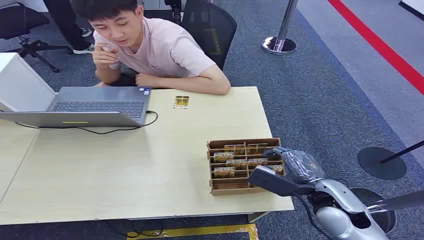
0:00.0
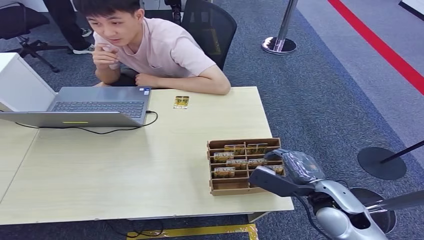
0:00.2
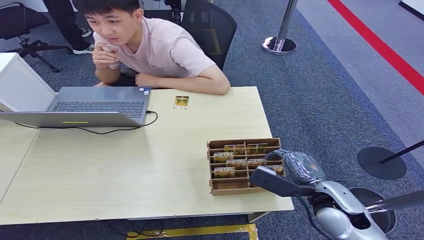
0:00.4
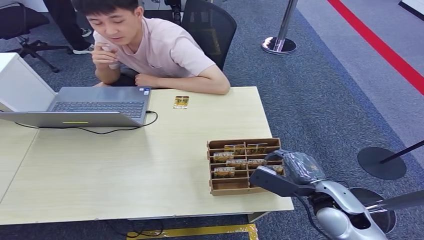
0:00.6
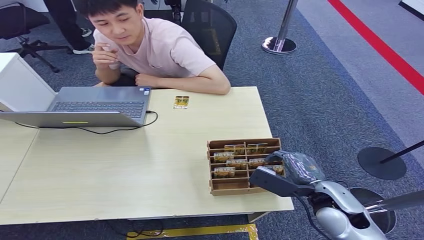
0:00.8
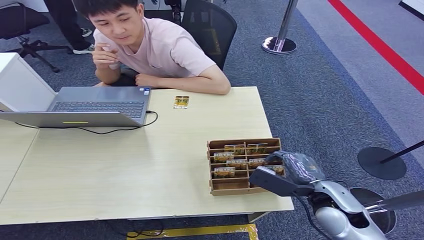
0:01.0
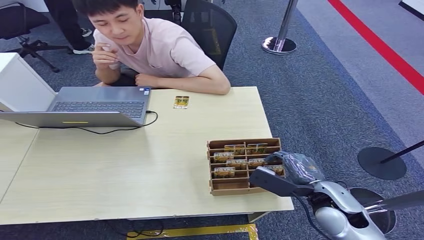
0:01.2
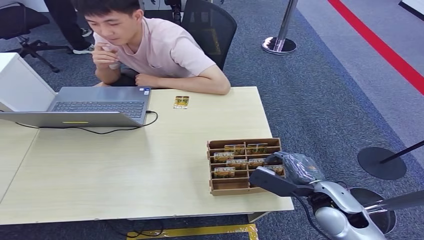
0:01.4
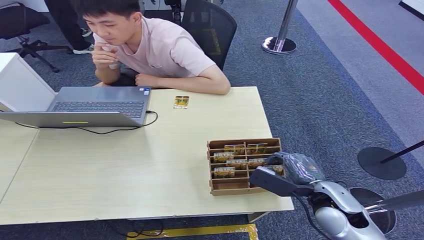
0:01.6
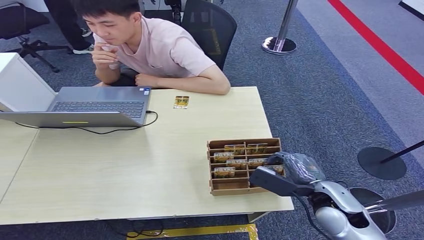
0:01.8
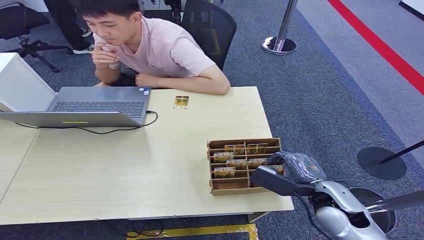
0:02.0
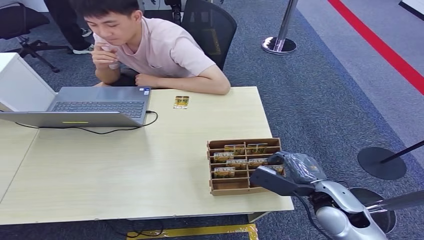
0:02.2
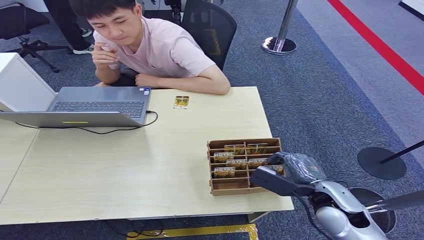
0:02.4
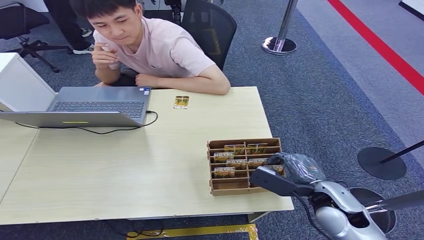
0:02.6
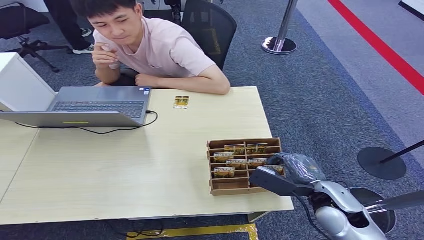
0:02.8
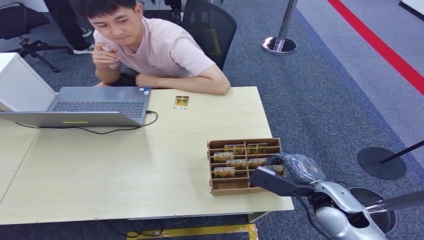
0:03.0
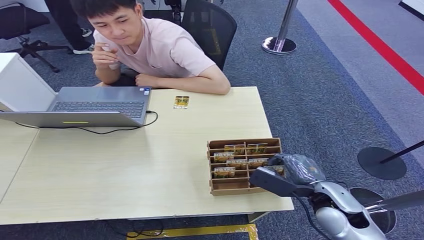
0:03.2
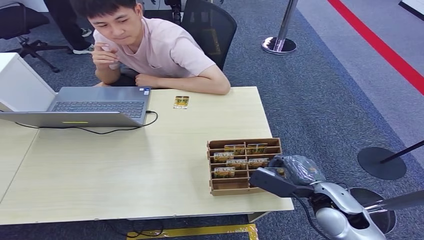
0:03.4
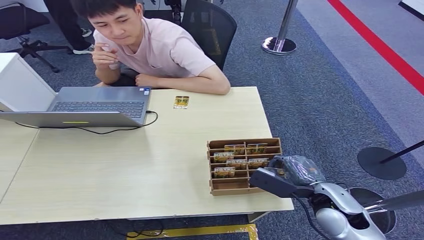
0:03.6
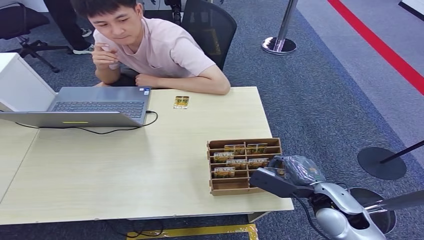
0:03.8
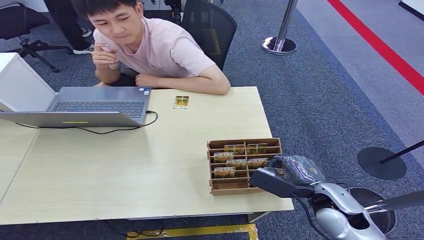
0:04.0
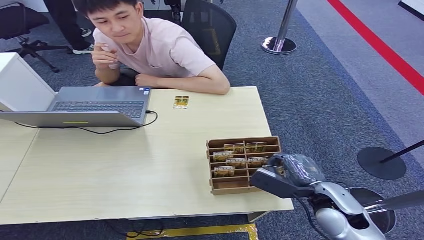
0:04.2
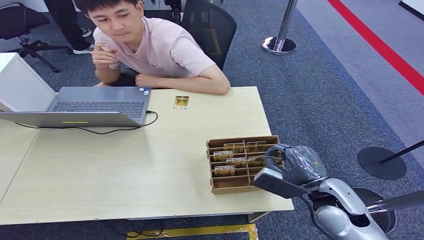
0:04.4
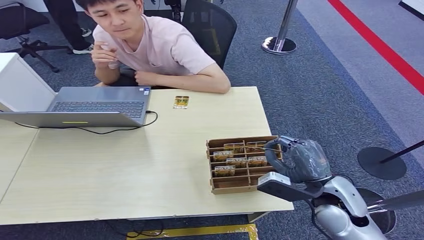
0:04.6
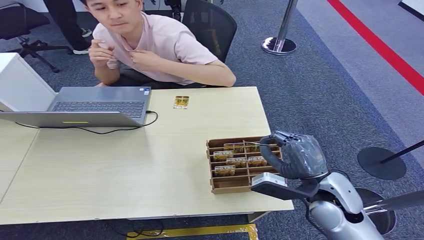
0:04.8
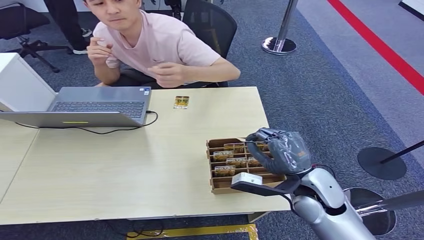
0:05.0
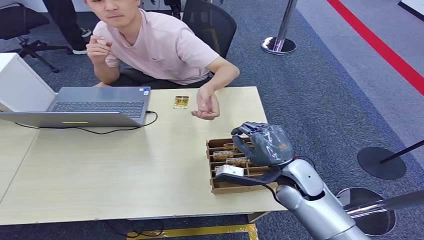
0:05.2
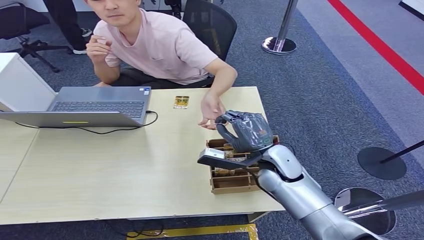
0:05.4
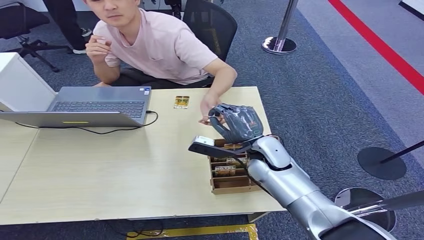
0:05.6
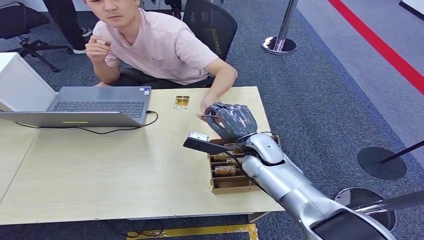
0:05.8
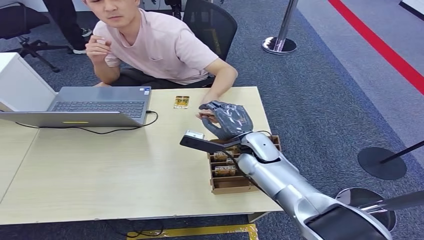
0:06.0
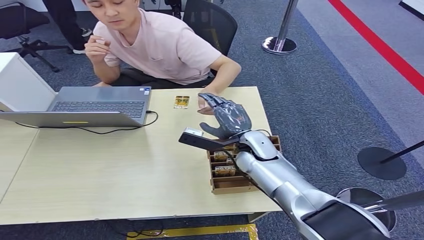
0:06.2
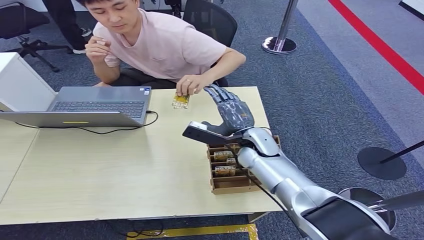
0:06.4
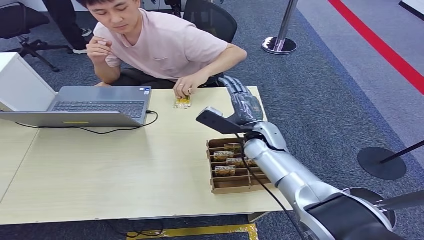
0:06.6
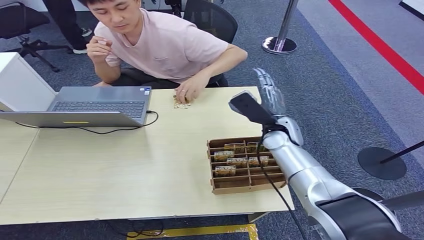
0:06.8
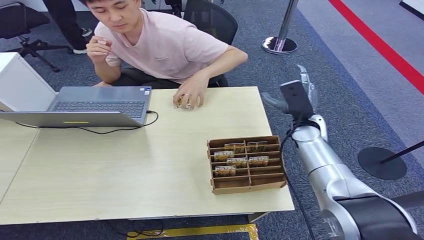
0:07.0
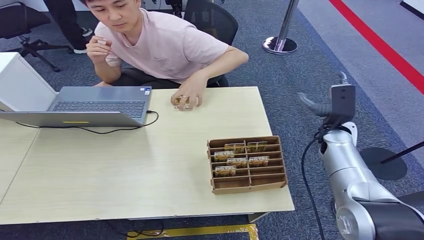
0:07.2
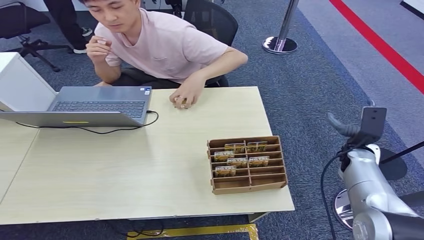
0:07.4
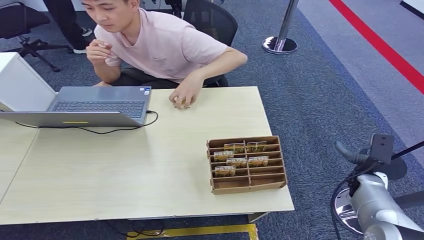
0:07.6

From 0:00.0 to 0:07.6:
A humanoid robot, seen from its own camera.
Step, from 0:00.0 to 0:04.6: Pick up the key card from the card box.
Step, from 0:04.8 to 0:07.6: Hand the key card to the target.
From 0:04.6 to 0:06.0: The right hand is displaced forward and to the left by roughly 20 cm.
From 0:06.0 to 0:07.6: The right hand shifts about 30 cm to the right.
